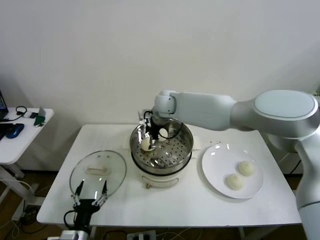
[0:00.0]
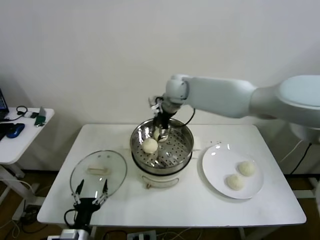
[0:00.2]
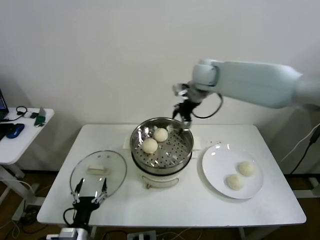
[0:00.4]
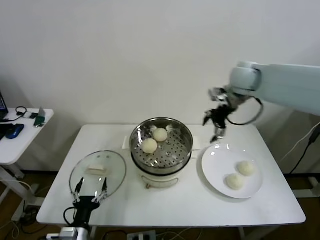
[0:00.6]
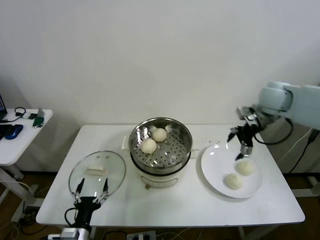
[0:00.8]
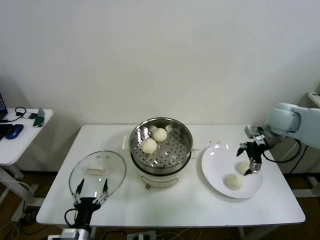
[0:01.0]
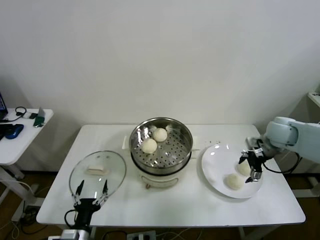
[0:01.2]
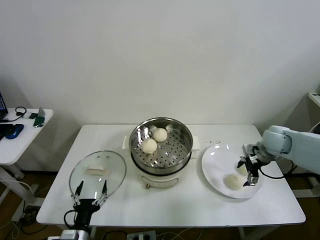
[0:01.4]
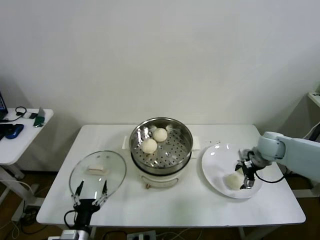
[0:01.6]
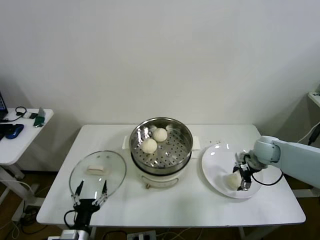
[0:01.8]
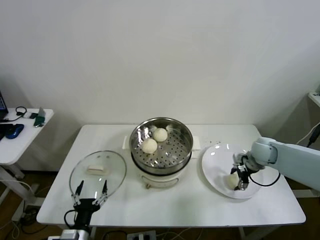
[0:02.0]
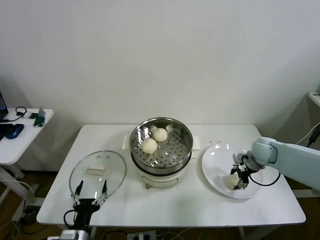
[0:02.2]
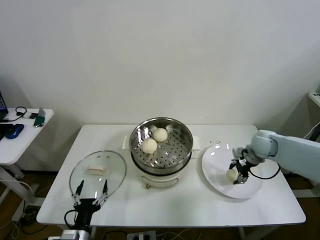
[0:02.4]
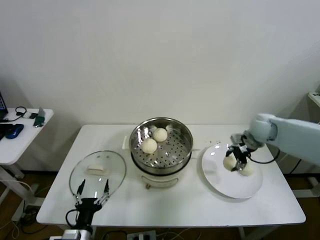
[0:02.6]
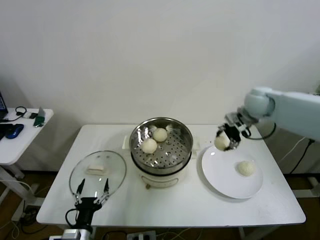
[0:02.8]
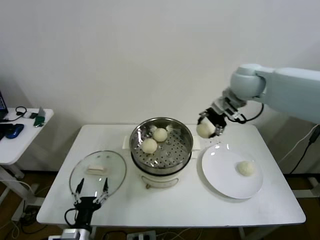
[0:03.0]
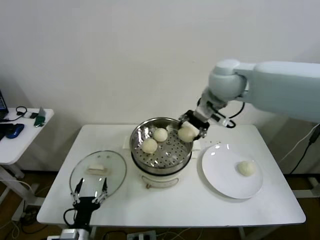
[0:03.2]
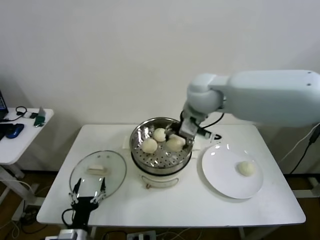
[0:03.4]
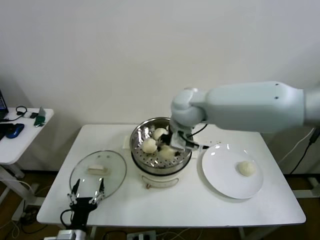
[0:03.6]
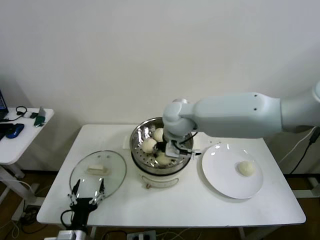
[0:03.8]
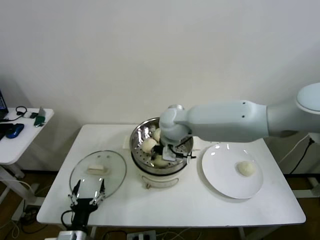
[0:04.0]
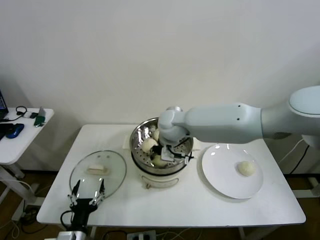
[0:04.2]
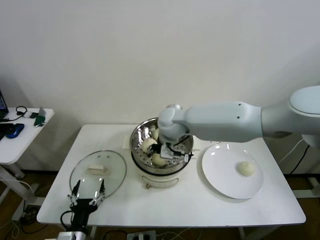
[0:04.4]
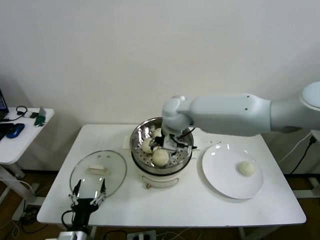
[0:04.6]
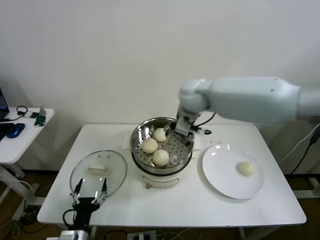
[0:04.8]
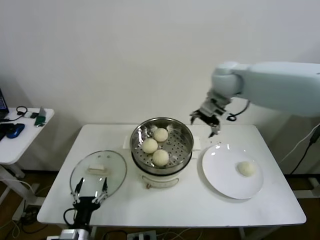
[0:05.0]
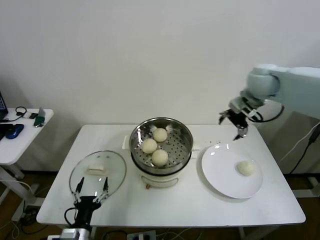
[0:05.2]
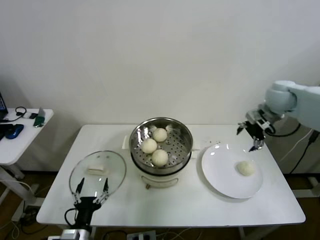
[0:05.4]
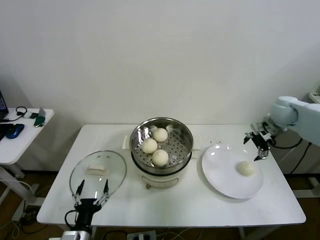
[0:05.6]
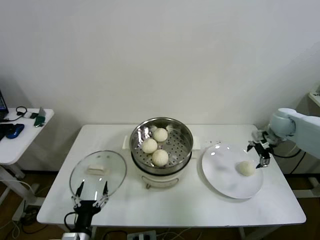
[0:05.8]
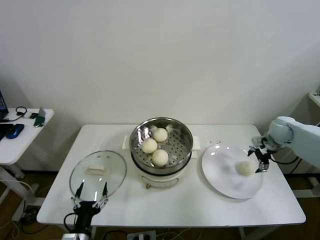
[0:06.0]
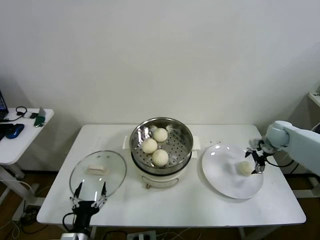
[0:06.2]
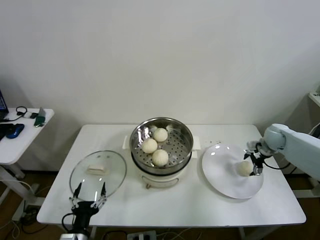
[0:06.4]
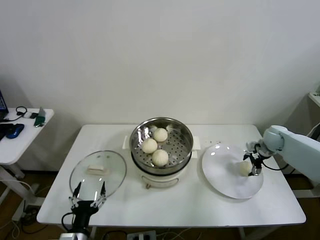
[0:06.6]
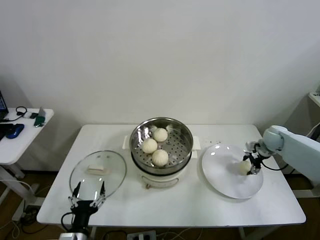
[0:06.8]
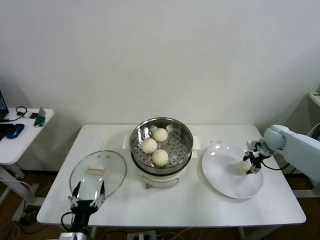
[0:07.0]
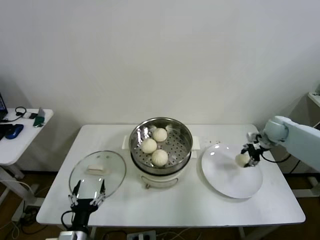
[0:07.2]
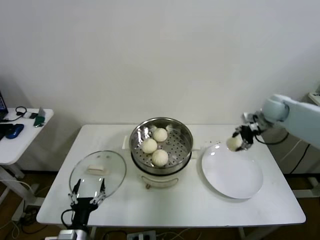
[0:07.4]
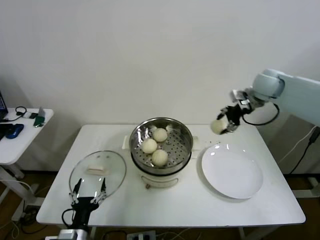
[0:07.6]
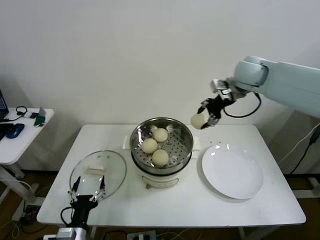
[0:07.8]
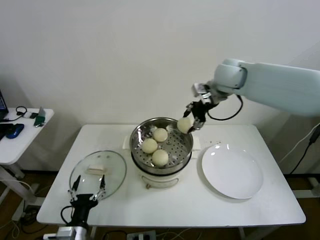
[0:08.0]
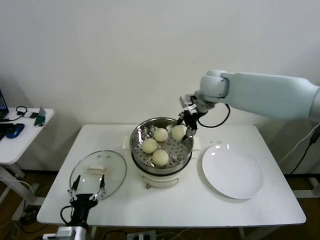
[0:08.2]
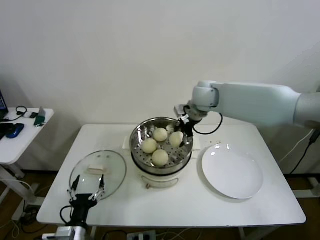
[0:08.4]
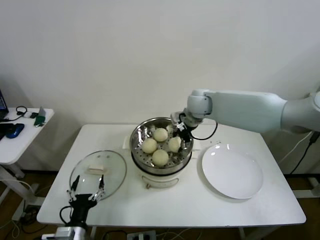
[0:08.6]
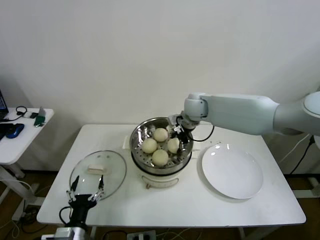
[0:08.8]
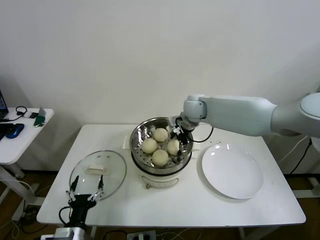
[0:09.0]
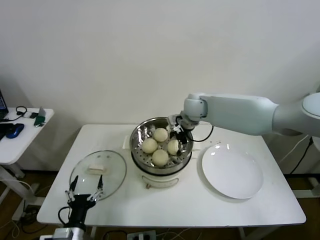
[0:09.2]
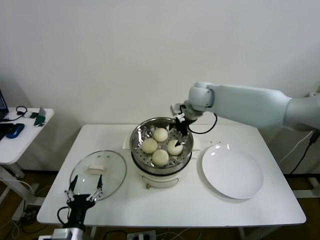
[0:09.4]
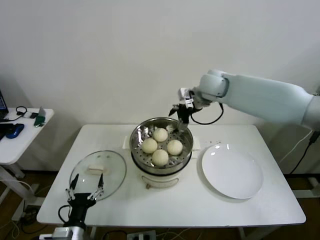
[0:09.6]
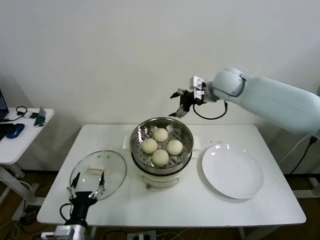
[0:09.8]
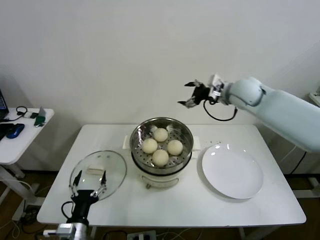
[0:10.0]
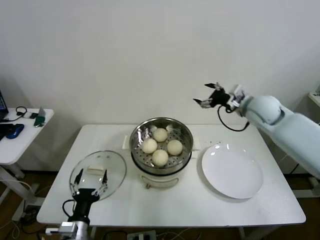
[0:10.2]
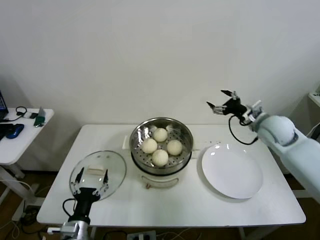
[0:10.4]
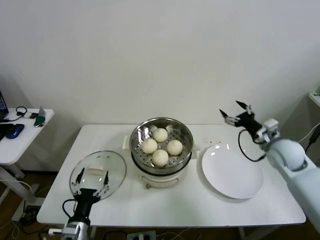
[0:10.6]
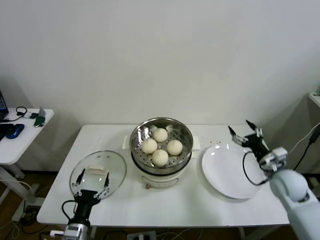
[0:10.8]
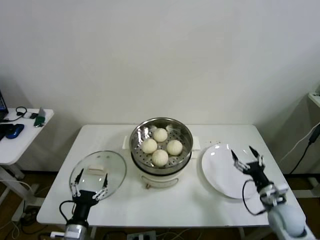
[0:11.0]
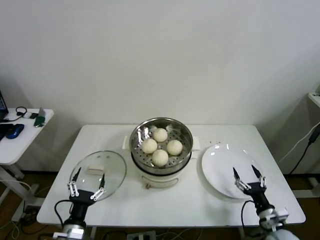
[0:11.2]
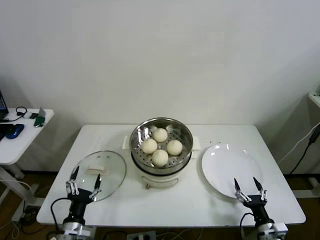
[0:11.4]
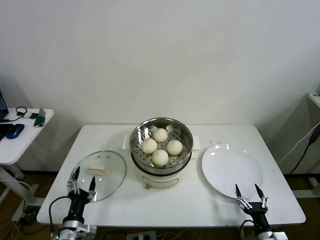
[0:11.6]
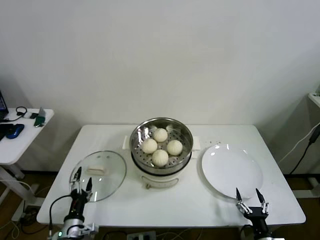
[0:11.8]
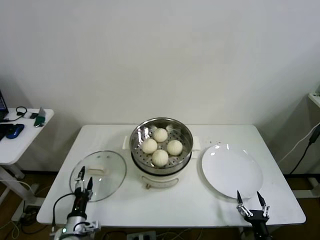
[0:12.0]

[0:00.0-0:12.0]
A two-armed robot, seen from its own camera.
Step, 0:00.0 to 0:02.0: Grasp the baozi in the plate with right gripper.
Step, 0:02.2 to 0:04.2: Place the baozi on the steamer with right gripper.
Step, 0:04.6 to 0:06.8: Grasp the baozi in the plate with right gripper.
Step, 0:07.0 to 0:09.0: Place the baozi on the steamer with right gripper.
0:00.0 to 0:01.6: The right gripper heads to the right, covering roughly 35 cm.
0:01.6 to 0:03.0: The right gripper travels upward and to the left by some 30 cm, and closes its fingers.
0:03.0 to 0:04.4: The right gripper is displaced to the left and downward by roughly 25 cm, and opens its fingers.
0:04.4 to 0:06.0: The right gripper moves to the right, some 40 cm.
0:06.0 to 0:07.6: The right gripper is displaced upward and to the left by roughly 20 cm, and closes.
0:07.6 to 0:09.0: The right gripper moves to the left and downward, approximately 25 cm, and opens up.
0:09.0 to 0:10.4: The right gripper moves to the right and backward, some 25 cm.
0:10.4 to 0:12.0: The left gripper travels downward by roughly 5 cm, while the right gripper moves backward and downward, roughly 50 cm.

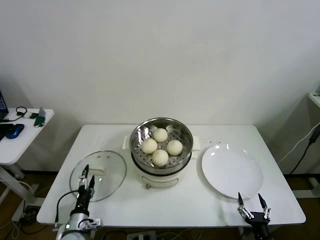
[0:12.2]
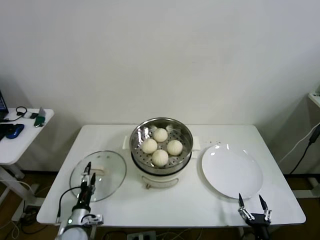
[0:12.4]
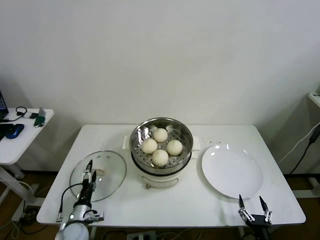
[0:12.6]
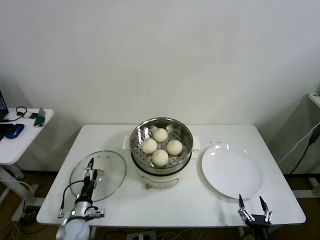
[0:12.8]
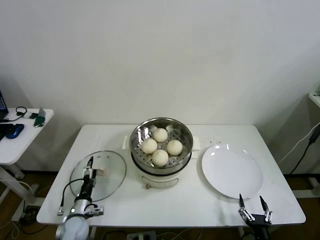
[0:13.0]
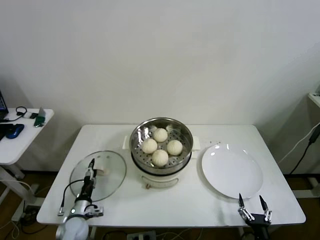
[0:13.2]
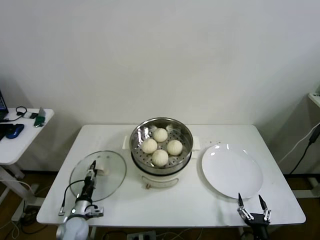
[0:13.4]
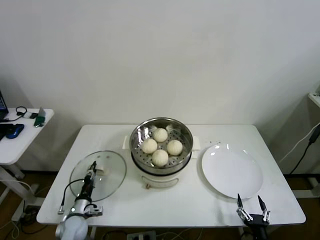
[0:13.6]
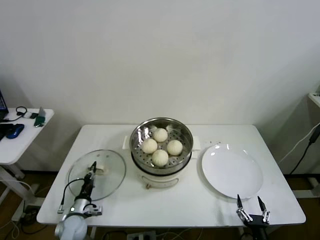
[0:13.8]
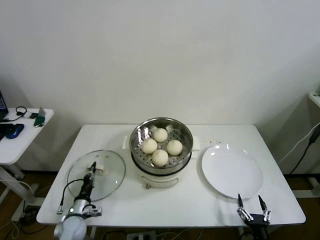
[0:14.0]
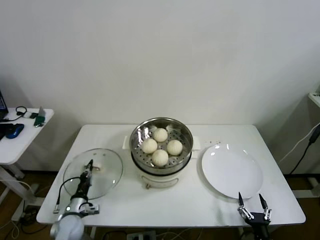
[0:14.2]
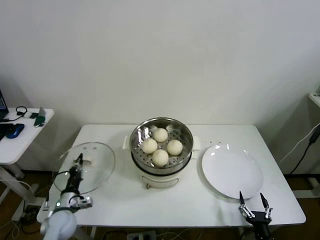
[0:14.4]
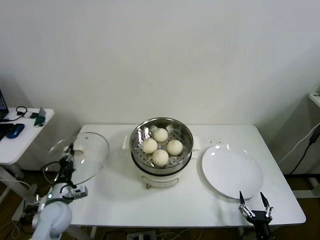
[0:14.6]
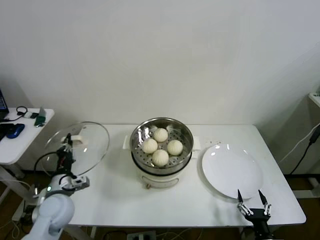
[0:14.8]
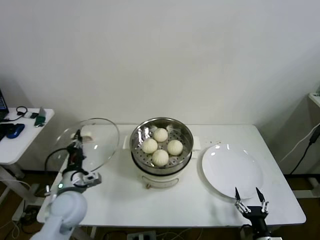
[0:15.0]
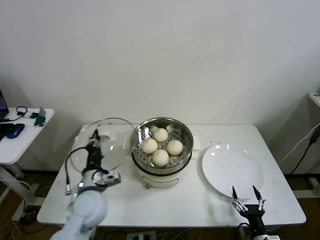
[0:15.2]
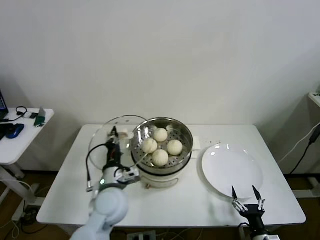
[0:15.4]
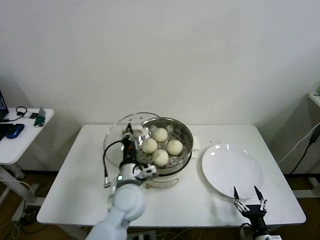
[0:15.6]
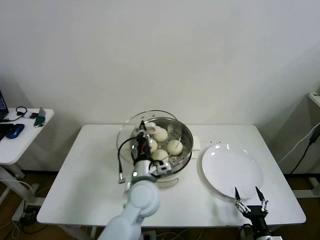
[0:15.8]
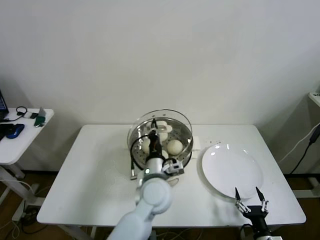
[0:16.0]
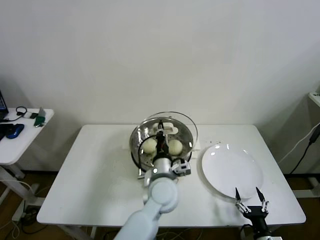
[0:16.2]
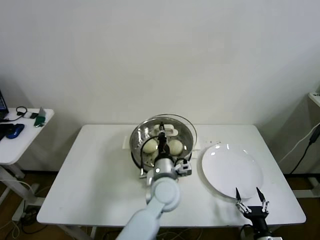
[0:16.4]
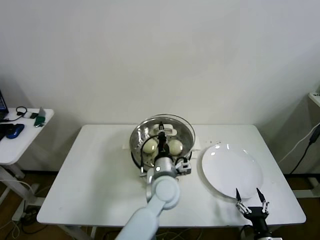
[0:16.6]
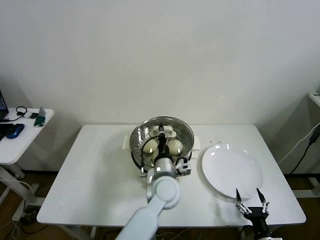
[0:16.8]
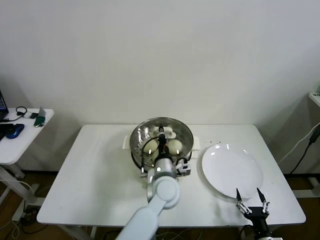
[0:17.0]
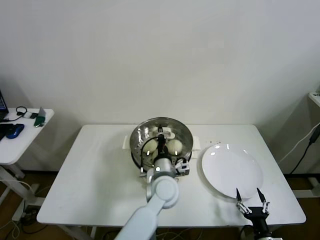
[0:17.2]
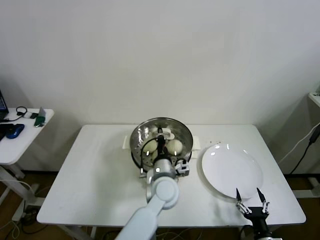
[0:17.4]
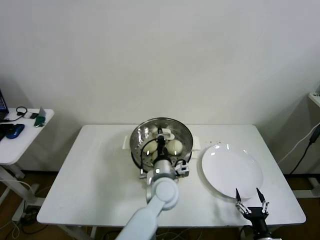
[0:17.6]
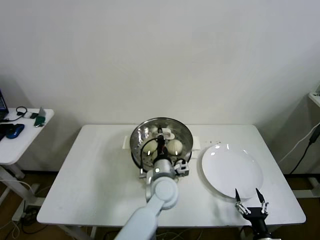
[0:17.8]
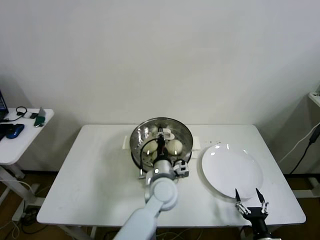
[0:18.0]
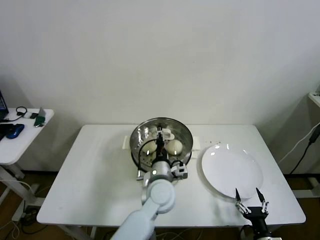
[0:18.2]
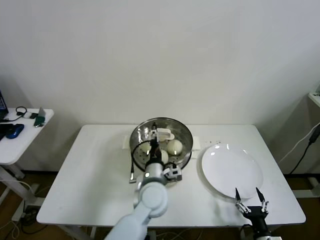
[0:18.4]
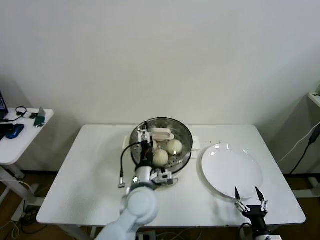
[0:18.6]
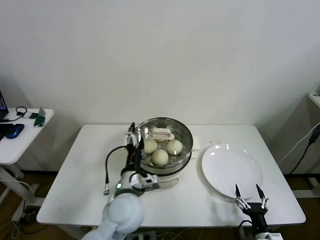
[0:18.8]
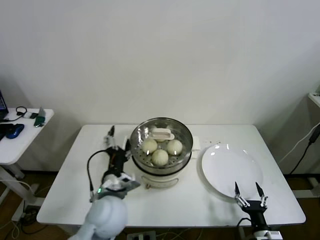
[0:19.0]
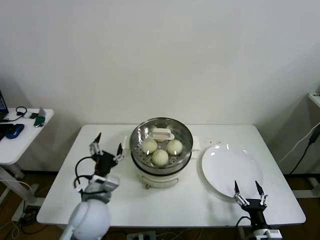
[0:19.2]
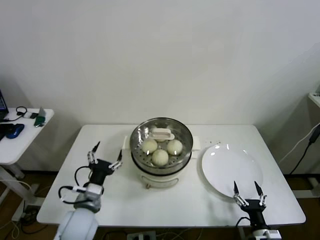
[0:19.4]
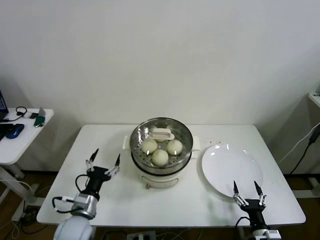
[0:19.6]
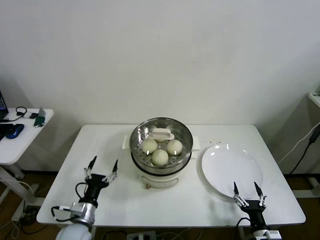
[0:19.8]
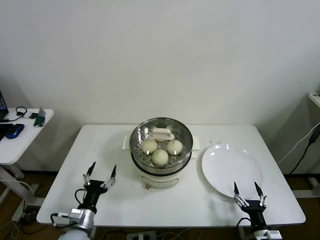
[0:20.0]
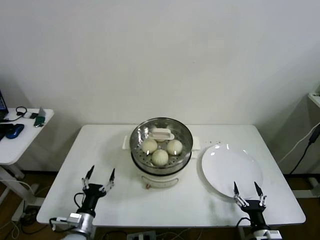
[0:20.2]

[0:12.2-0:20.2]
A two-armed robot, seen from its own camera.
Step, 0:13.8 to 0:17.8: Place the pot lid on the steamer with left gripper.
0:12.2 to 0:13.8: The left gripper is displaced forward by approximately 5 cm, and closes its fingers.
0:13.8 to 0:15.4: The left gripper travels upward and to the right by some 30 cm.
0:15.4 to 0:17.0: The left gripper shifts about 15 cm to the right.
0:17.0 to 0:18.6: The left gripper shifts about 5 cm to the left, and opens.
0:18.6 to 0:20.2: The left gripper travels to the left and downward by about 30 cm.

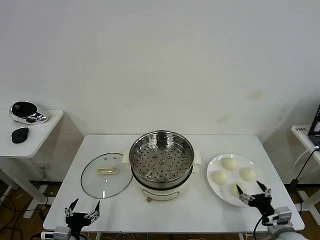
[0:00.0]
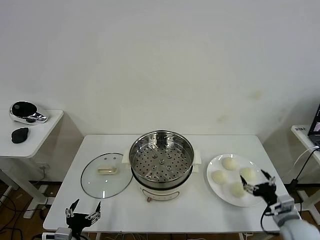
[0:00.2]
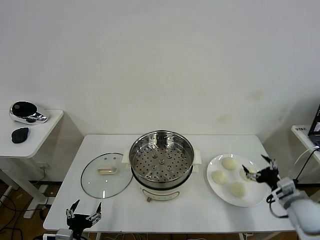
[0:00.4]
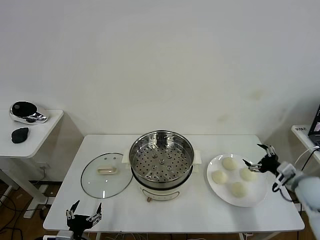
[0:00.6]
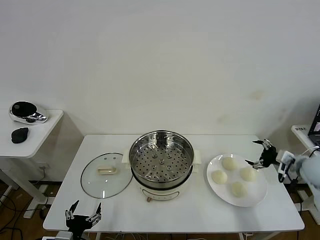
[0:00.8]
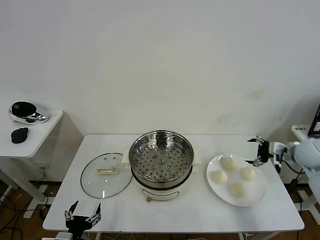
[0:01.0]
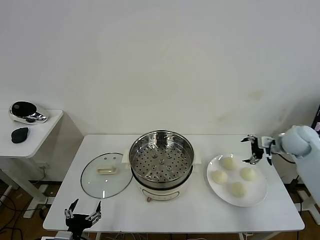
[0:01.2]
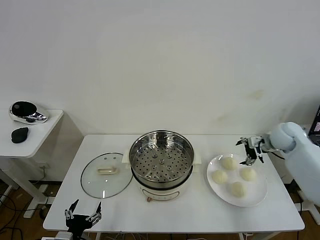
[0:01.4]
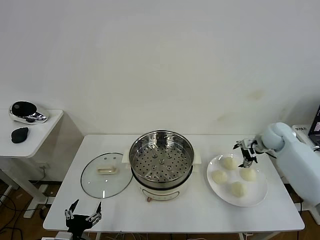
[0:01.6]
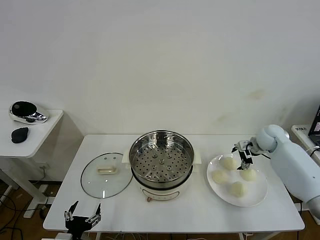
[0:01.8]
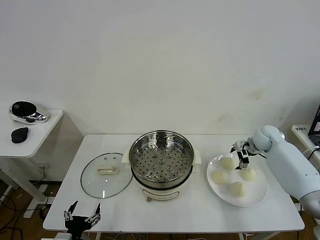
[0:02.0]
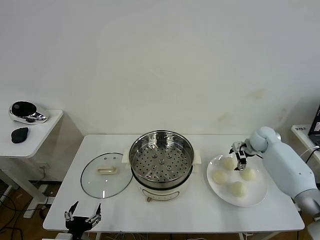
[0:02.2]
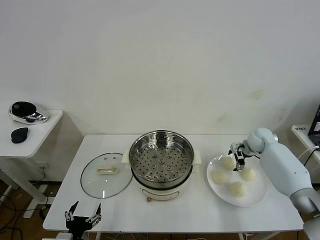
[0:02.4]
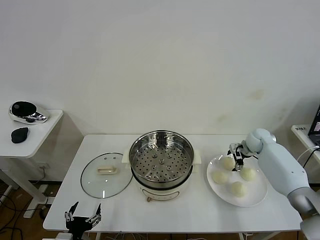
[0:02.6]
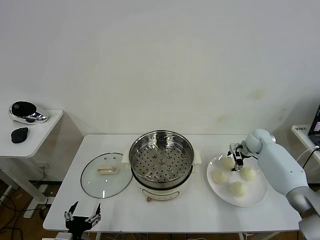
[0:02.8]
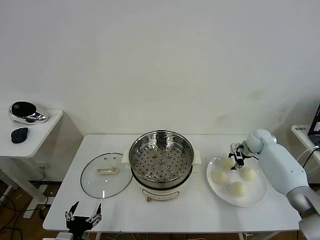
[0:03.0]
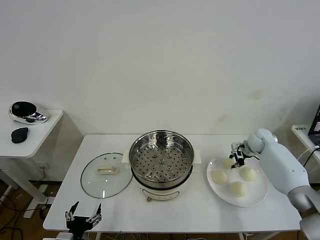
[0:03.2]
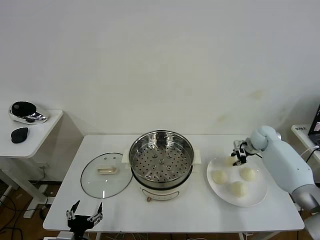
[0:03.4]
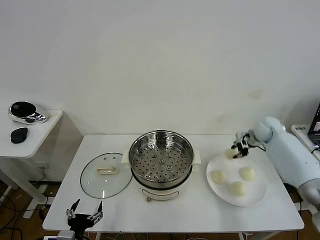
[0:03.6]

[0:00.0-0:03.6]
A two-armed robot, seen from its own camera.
Step, 0:00.0 to 0:03.2: Grasp the baozi in the plate with right gripper.
0:01.8 to 0:03.6: The right gripper travels upward by roughly 5 cm, and closes its fingers.
